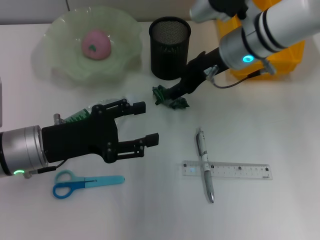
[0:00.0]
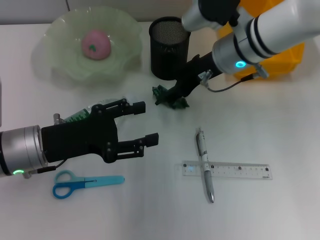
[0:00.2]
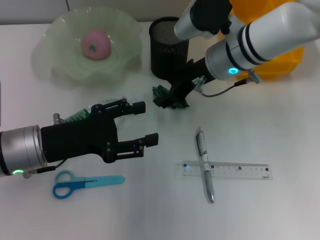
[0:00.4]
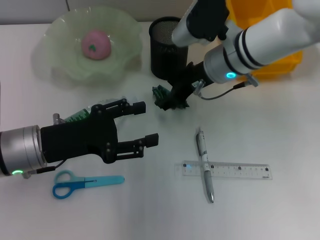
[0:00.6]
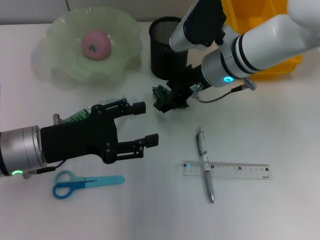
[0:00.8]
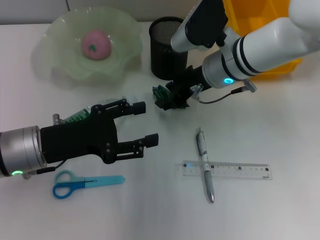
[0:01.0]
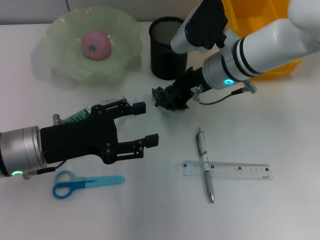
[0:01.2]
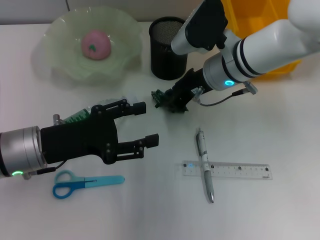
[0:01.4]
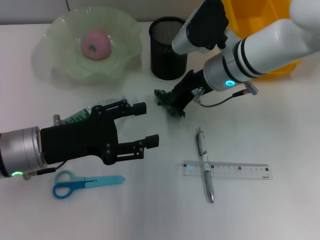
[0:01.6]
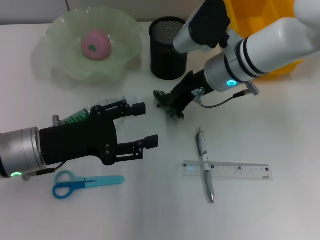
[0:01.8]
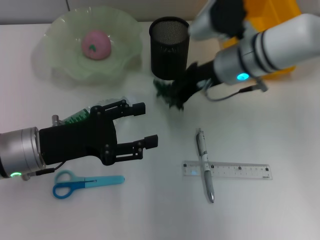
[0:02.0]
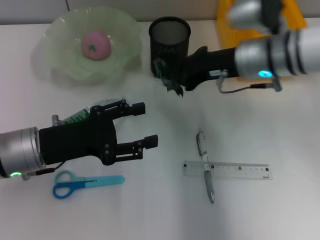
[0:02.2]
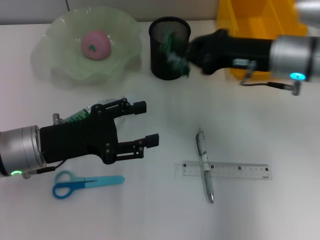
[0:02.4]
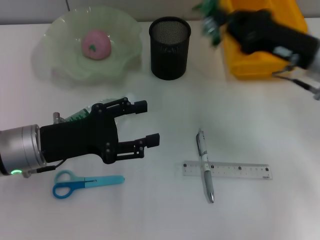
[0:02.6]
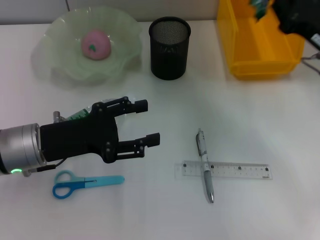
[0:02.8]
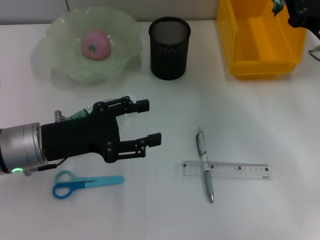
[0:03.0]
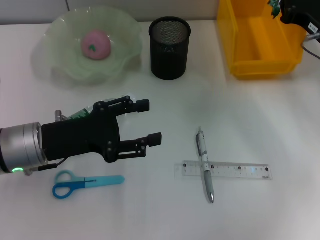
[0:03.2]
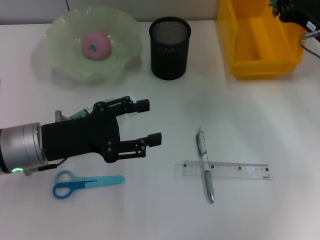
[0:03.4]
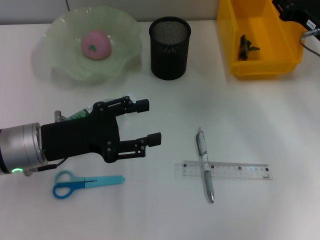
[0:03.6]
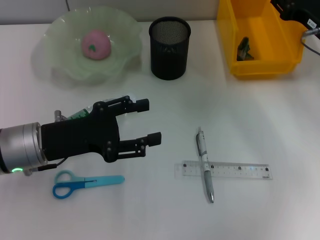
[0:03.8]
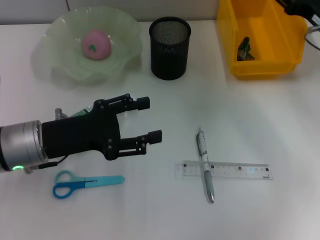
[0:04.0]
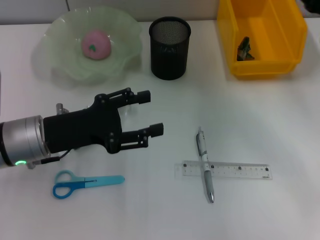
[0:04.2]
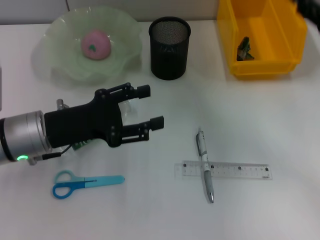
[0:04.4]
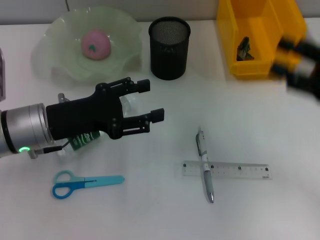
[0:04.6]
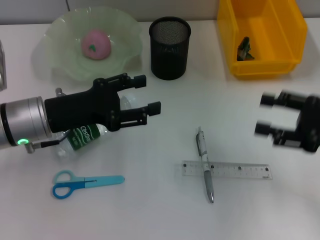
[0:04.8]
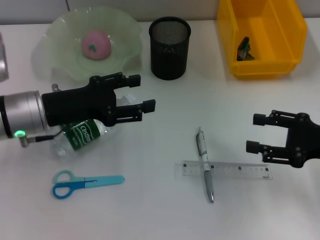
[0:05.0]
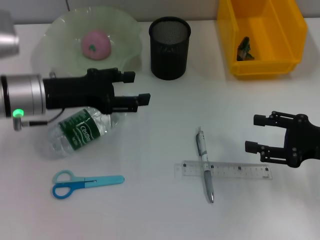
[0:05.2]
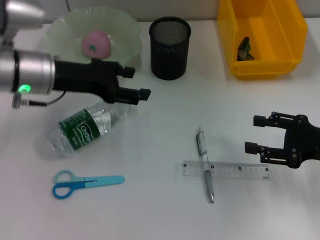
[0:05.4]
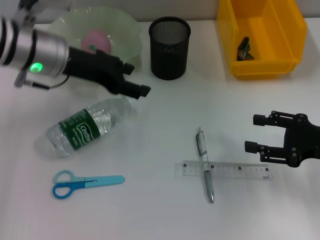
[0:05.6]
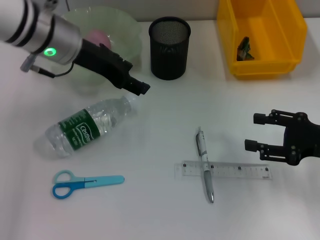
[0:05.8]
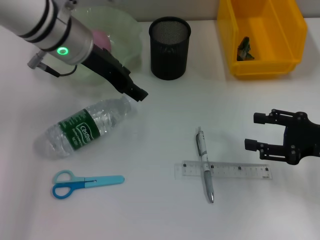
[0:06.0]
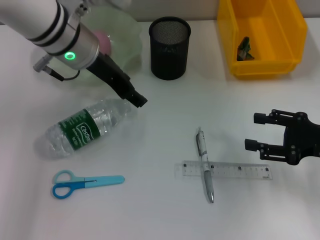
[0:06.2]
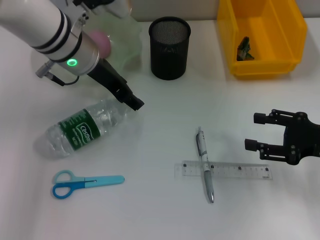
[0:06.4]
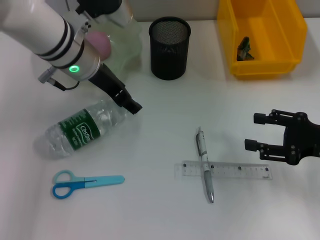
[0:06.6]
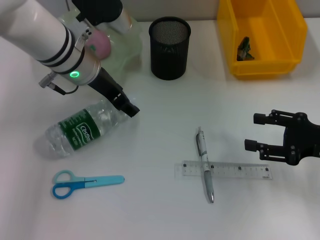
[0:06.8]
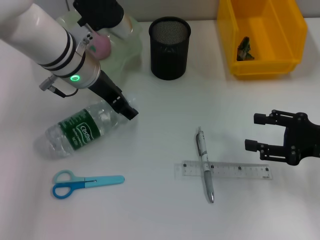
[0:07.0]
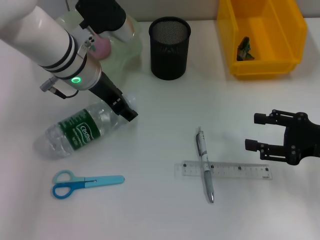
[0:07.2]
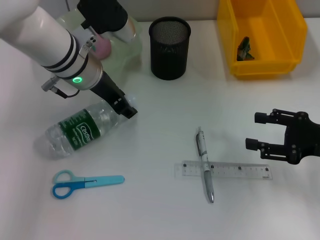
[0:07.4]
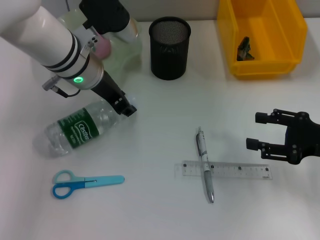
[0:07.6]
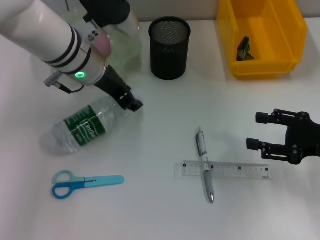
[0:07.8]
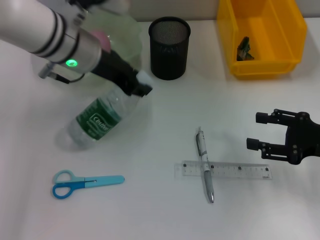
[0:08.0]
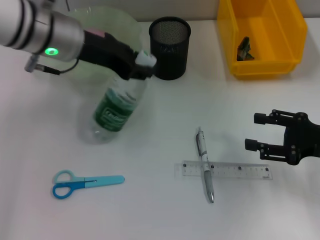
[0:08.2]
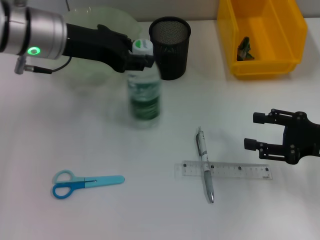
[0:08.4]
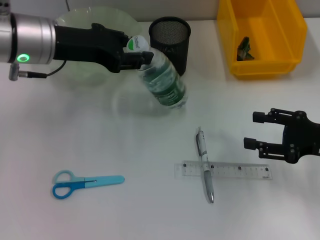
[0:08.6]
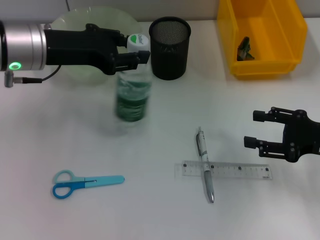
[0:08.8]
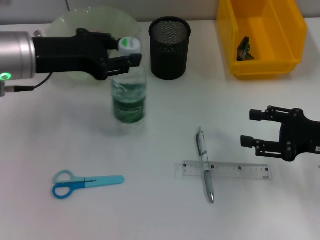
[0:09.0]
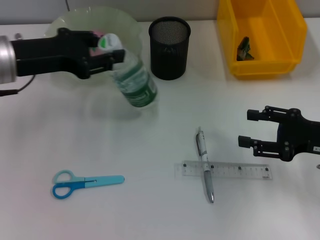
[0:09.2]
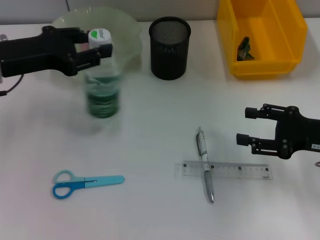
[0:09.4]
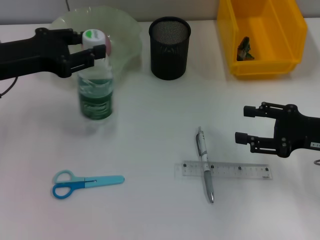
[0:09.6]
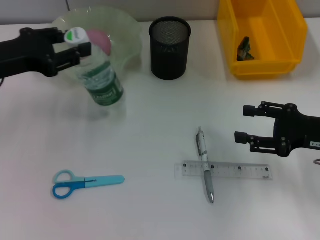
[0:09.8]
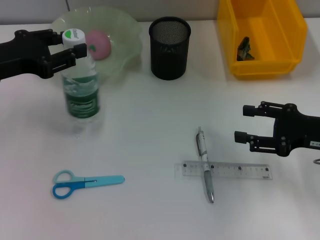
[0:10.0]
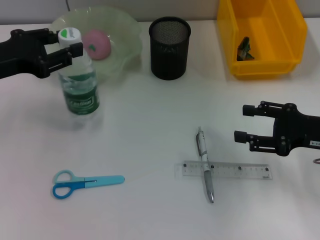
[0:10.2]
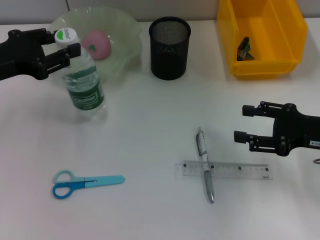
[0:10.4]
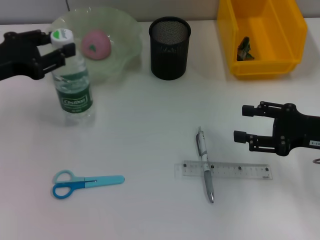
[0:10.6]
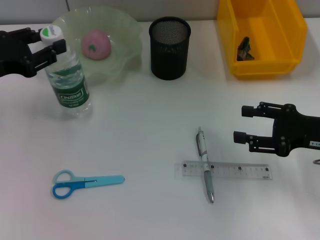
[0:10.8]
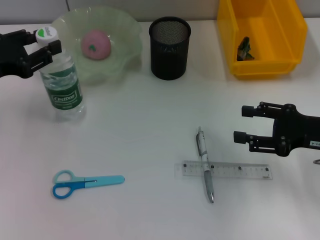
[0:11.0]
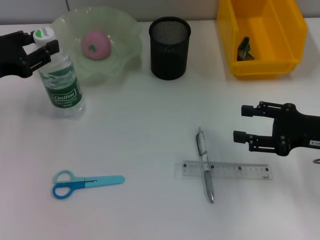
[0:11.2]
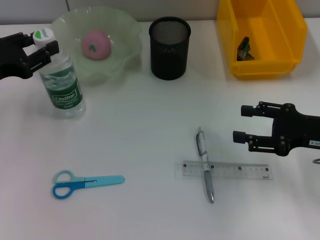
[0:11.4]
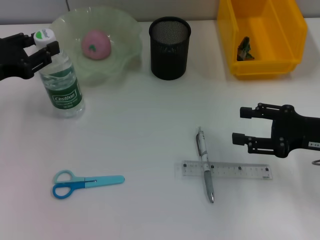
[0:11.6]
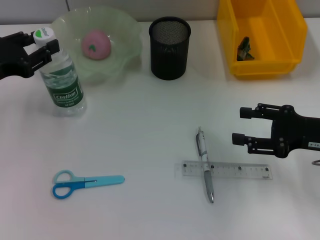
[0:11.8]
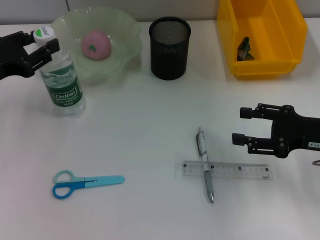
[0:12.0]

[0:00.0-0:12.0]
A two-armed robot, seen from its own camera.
Step, 1.6 to 4.0 s: Place the plastic into the trash can with the right hand.
Step, 4.2 to 7.2 s: Grab the water bottle with the left hand.
0.0 to 1.6 s: The right gripper closes up.
1.6 to 3.0 s: The right gripper goes some 20 cm to the right.
3.0 to 4.4 s: The right gripper changes place by some 5 cm, and opens up.
4.4 to 6.0 s: The left gripper goes about 15 cm forward, upward and to the right. Meanwhile the right gripper moves downward, about 5 cm.
6.0 to 7.6 s: The left gripper goes some 5 cm downward.
7.6 to 9.0 s: The left gripper moves to the left and backward, approximately 10 cm.
9.0 to 10.4 s: The left gripper shifts roughly 10 cm to the left.
10.4 to 12.0 s: There are only small adjustments of the grippers.

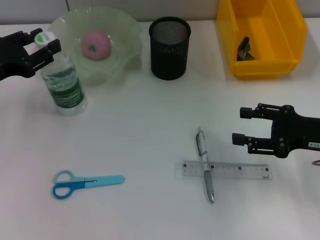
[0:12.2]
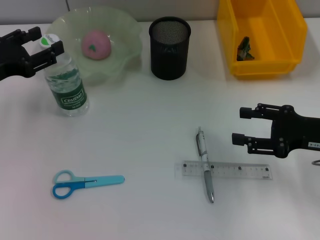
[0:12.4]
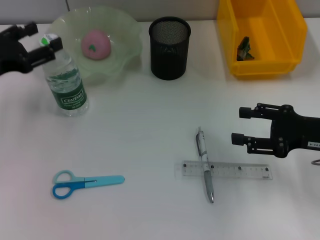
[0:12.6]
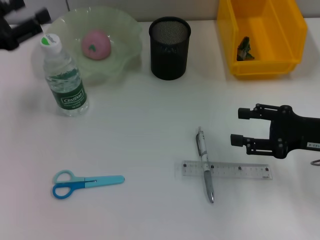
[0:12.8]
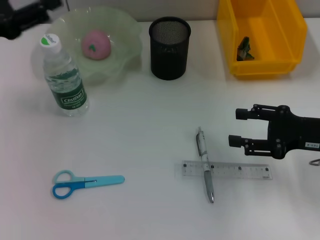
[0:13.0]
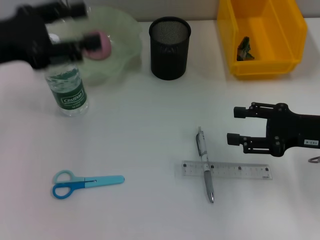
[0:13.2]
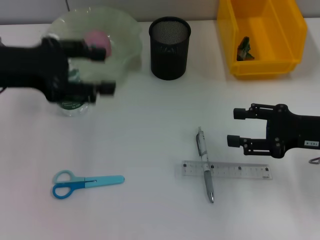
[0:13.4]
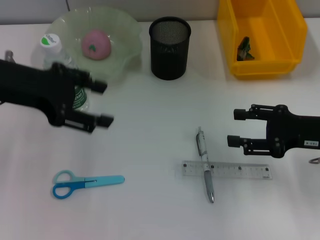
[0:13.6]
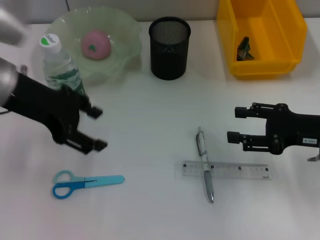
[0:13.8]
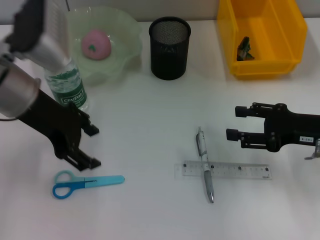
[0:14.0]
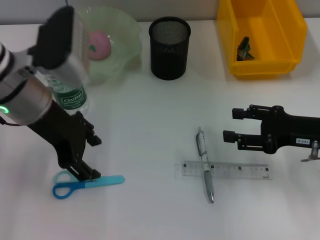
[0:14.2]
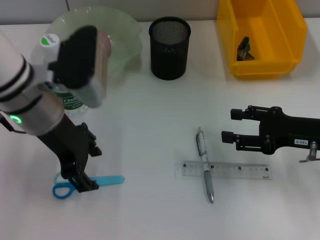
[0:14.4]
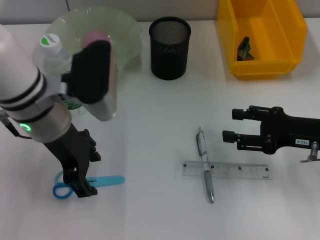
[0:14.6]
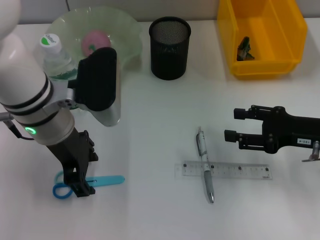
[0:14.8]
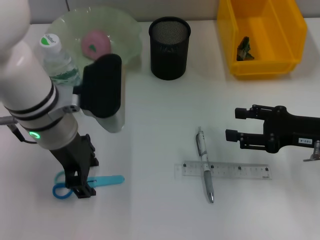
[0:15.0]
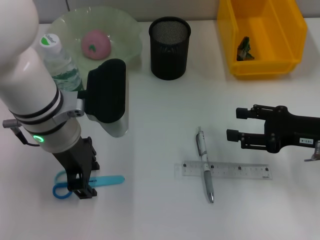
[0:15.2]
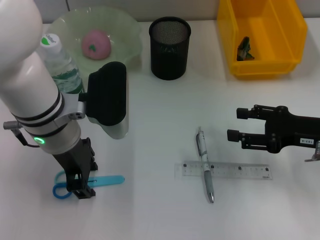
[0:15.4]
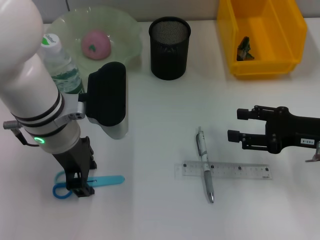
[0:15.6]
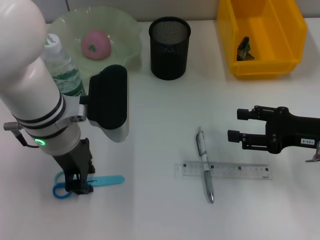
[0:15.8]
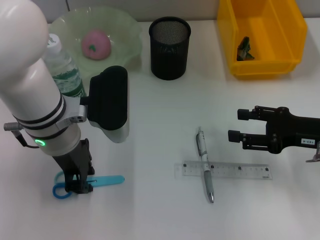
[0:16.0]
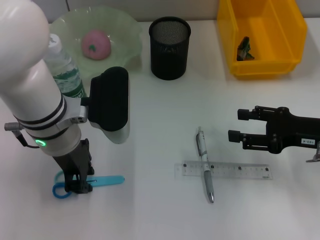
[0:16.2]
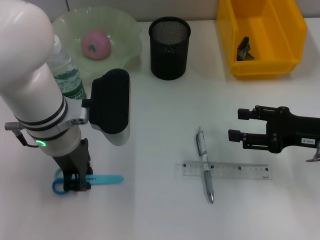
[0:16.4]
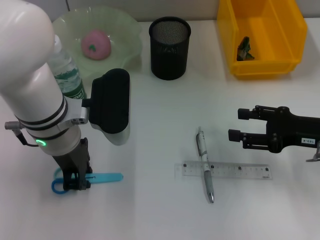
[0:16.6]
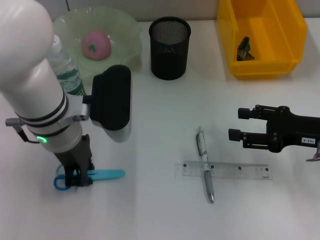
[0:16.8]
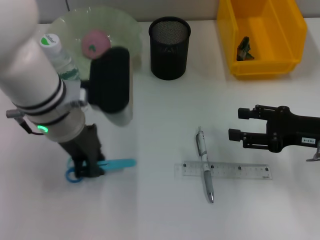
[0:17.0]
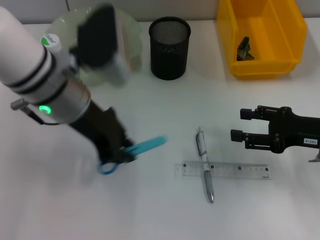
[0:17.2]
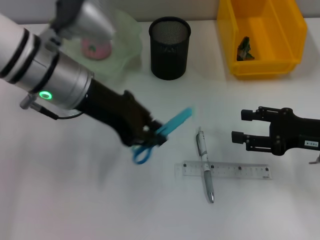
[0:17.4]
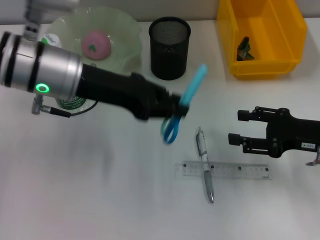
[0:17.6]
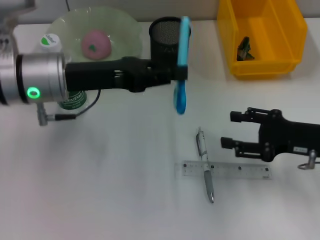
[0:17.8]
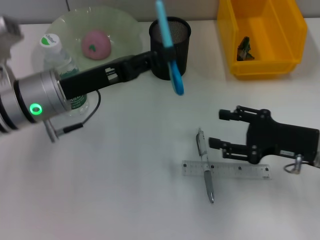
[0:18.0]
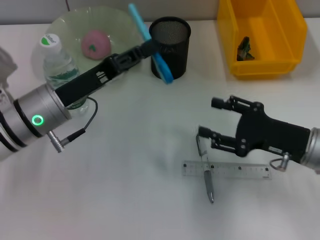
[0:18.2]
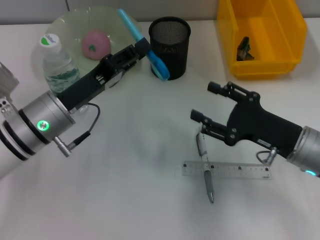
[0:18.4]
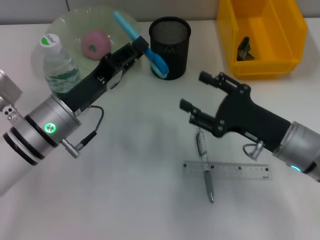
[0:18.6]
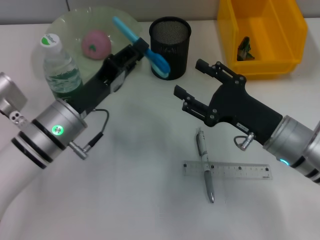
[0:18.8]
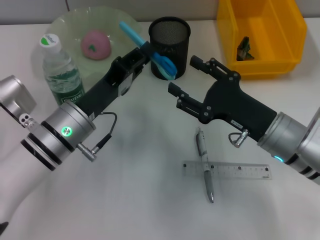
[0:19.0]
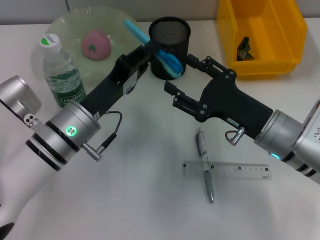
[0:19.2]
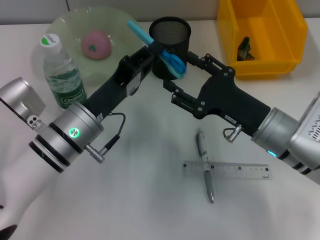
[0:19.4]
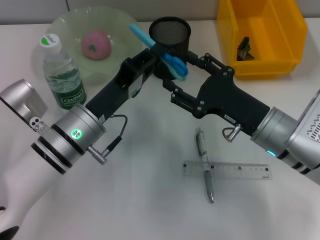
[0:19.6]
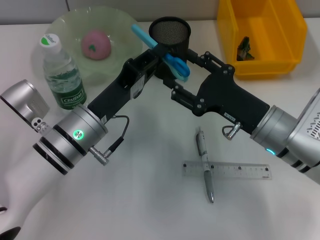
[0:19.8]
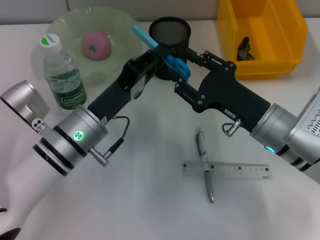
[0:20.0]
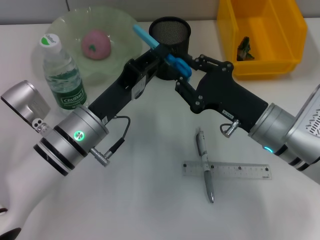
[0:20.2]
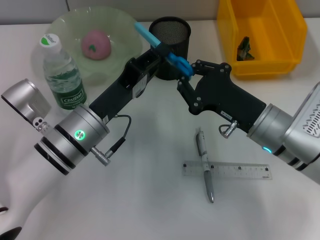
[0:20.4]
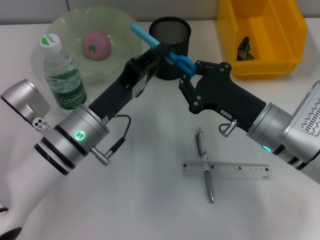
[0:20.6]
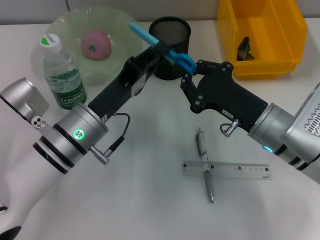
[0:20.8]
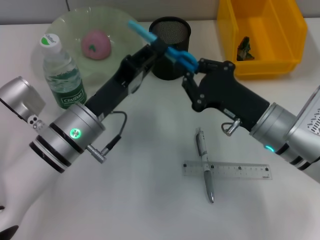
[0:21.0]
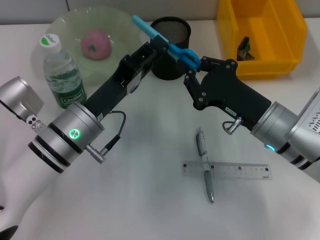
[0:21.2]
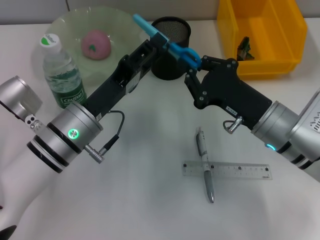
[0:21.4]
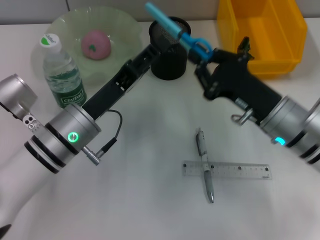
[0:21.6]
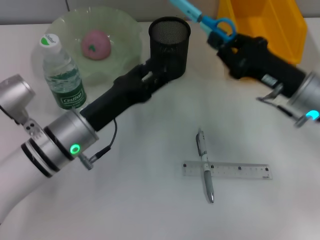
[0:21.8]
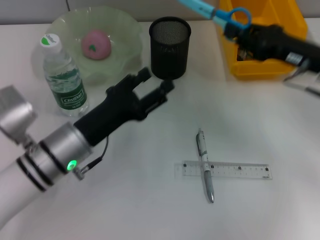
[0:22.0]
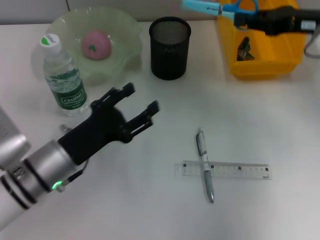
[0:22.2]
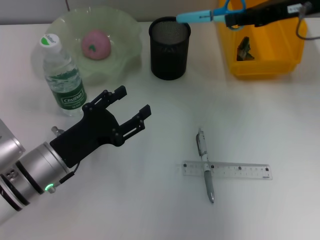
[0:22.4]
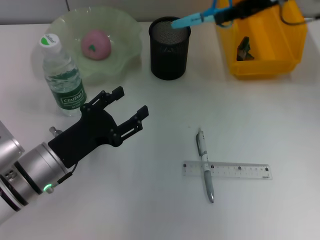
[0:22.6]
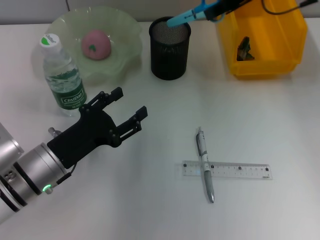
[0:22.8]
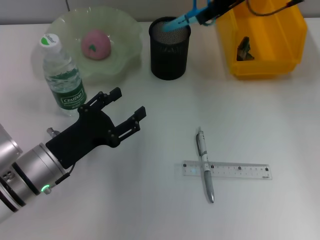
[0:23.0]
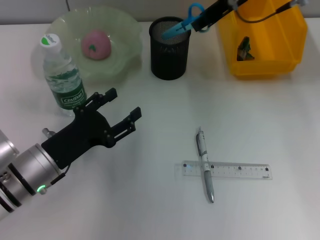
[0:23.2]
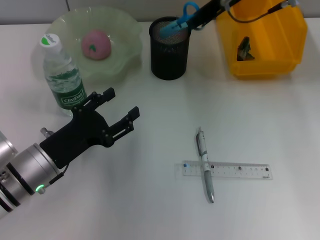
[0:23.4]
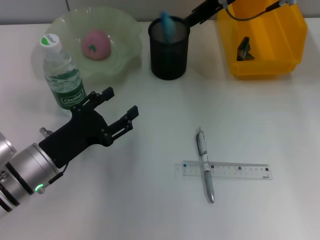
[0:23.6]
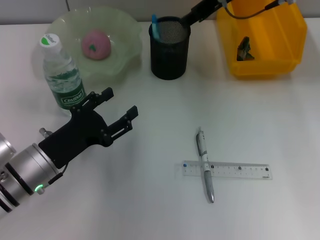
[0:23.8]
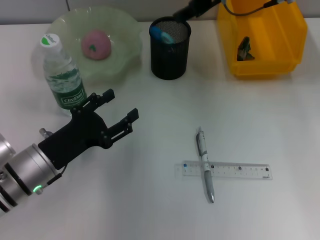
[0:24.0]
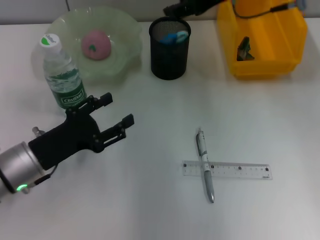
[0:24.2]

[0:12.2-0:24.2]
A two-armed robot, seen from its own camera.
Step, 12.8 to 16.2 s: Grab the blue scissors with the left hand.
Step, 16.4 to 21.2 s: Pass the blue scissors from the left hand to the right hand.
12.2 to 13.8 s: The left gripper shifts some 10 cm to the right and upward, and opens its fingers.
13.8 to 15.2 s: The left gripper moves to the right and downward, roughly 10 cm.
15.2 to 16.6 s: The left gripper closes up.
16.6 to 18.2 s: The left gripper travels to the left and downward by roughly 10 cm; the right gripper goes roughly 5 cm to the left.
18.2 to 19.8 s: The left gripper moves to the right, about 5 cm. The right gripper is displaced to the left by approximately 5 cm.
19.8 to 21.2 s: The right gripper closes.
21.2 to 22.6 s: The right gripper heads upward and forward, covering roughly 25 cm. Meanwhile the left gripper moves to the left, some 5 cm, and opens its fingers.
22.6 to 24.2 s: The right gripper travels to the left by roughly 5 cm, and opens up.
